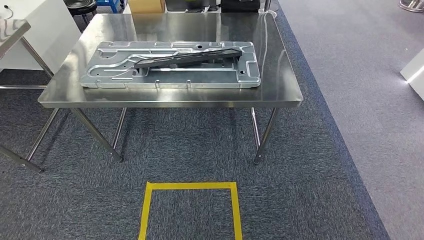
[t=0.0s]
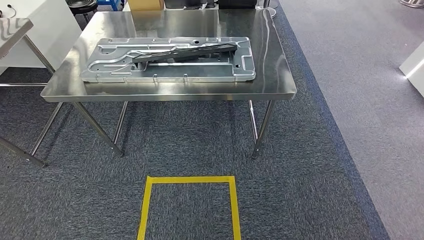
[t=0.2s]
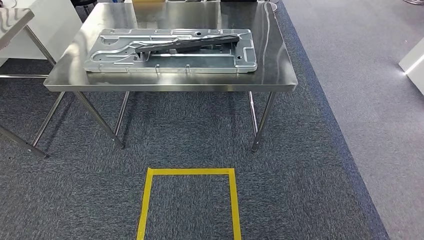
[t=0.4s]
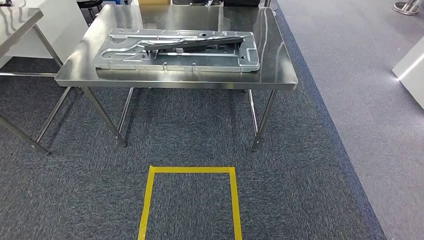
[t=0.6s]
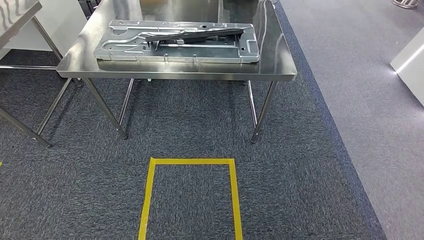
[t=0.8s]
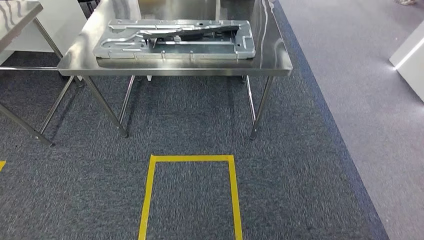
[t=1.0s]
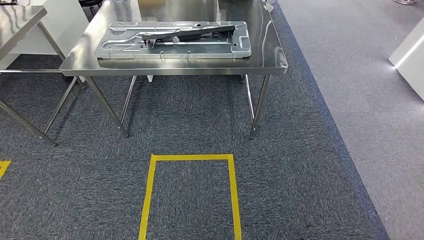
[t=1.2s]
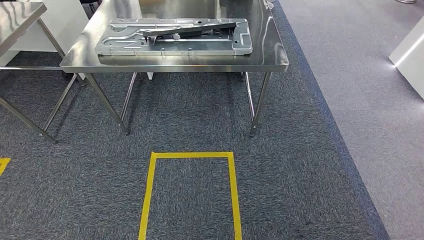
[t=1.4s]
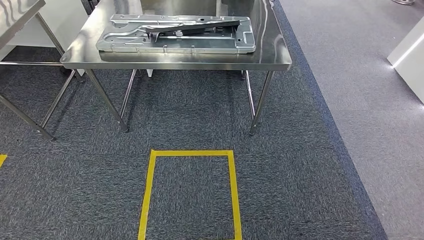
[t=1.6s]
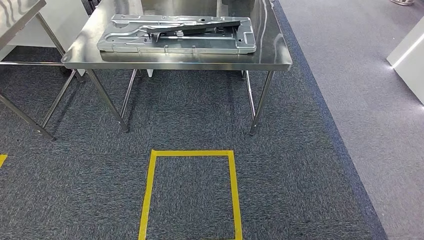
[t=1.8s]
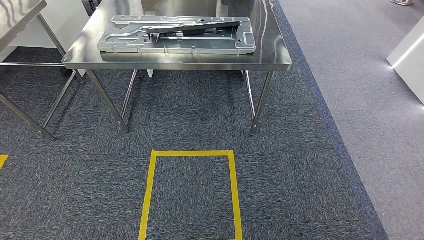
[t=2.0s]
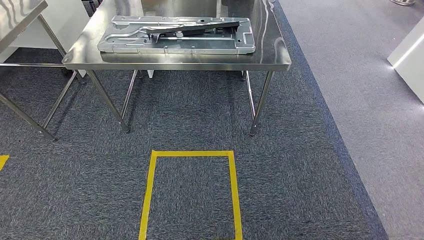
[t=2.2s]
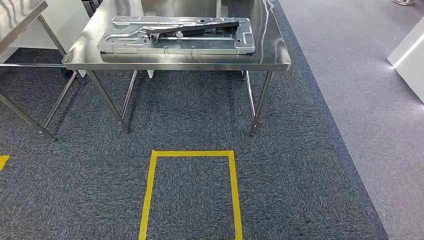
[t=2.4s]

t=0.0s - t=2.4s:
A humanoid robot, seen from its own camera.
Step, t=0.0s - t=2.2s: Move to the initial position of the shelf.
t=1.2s - t=2.4s: Both hands stay about where they are.

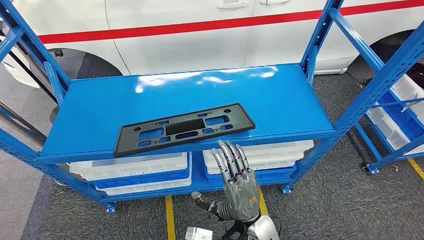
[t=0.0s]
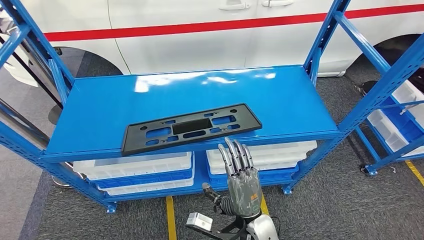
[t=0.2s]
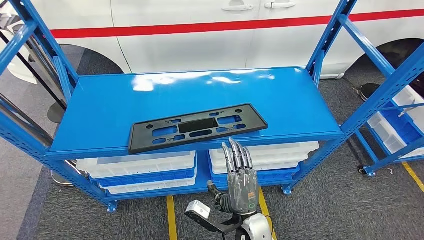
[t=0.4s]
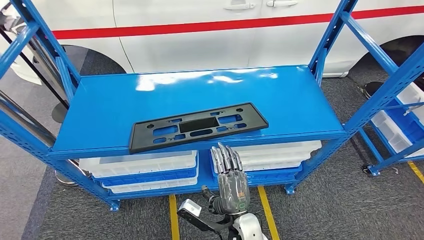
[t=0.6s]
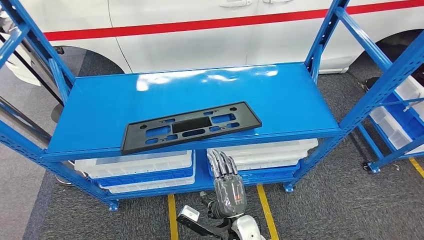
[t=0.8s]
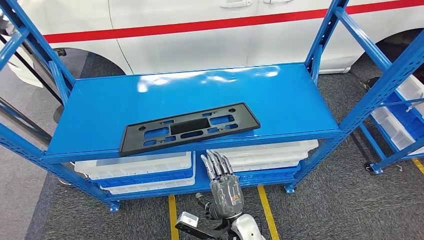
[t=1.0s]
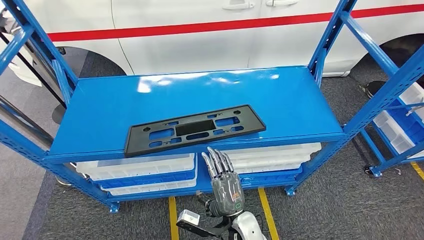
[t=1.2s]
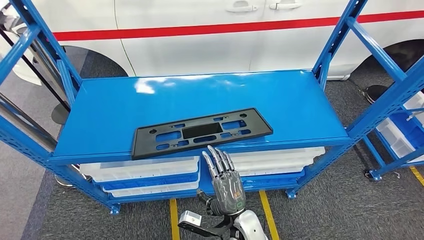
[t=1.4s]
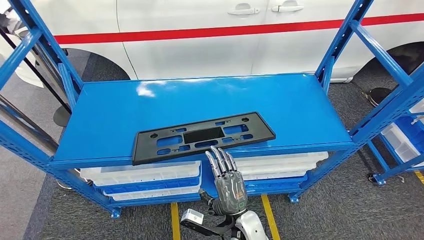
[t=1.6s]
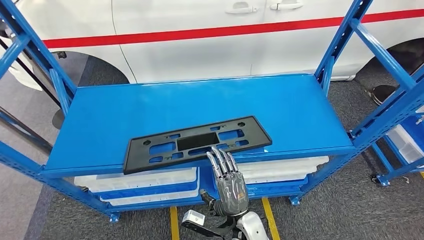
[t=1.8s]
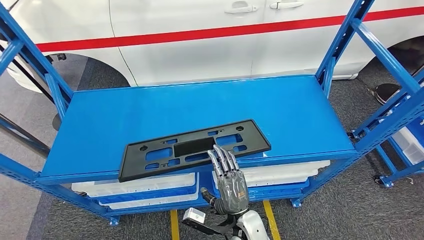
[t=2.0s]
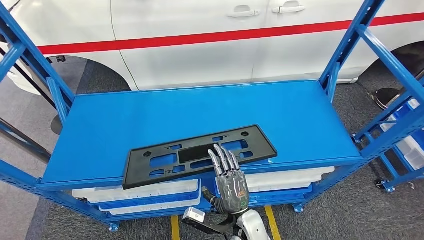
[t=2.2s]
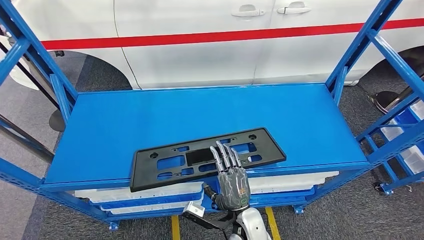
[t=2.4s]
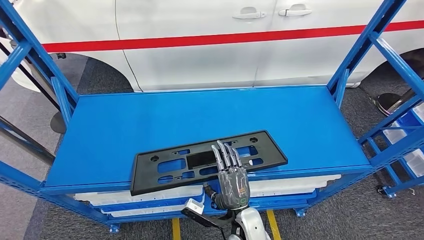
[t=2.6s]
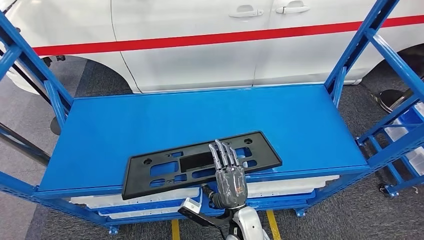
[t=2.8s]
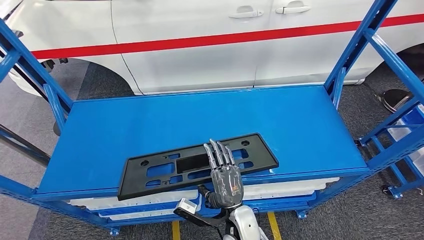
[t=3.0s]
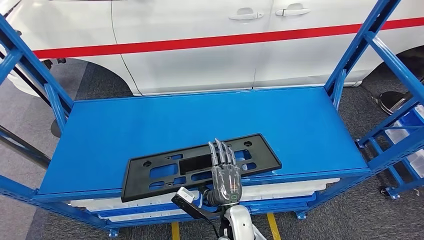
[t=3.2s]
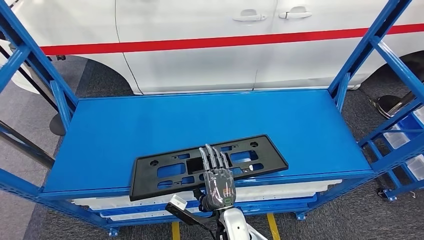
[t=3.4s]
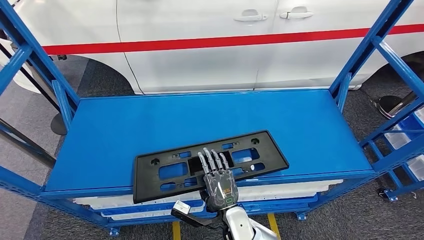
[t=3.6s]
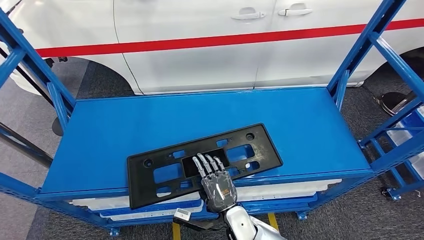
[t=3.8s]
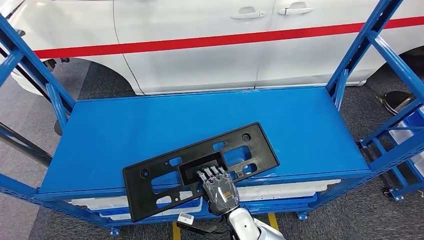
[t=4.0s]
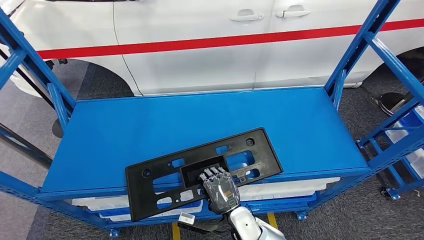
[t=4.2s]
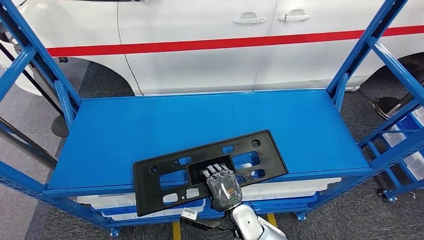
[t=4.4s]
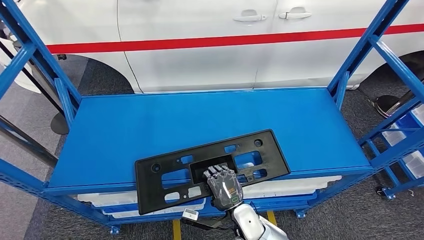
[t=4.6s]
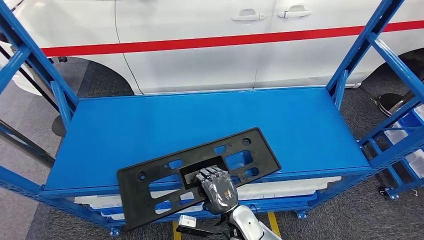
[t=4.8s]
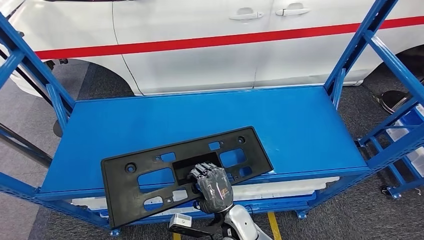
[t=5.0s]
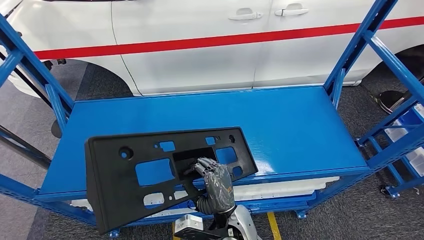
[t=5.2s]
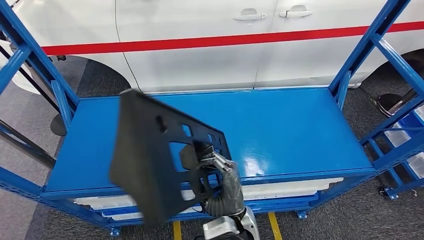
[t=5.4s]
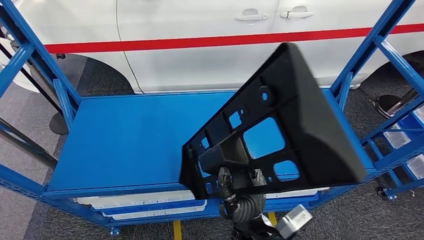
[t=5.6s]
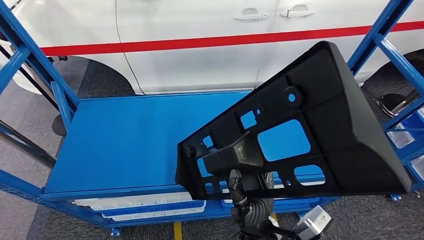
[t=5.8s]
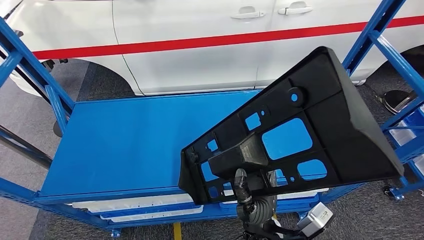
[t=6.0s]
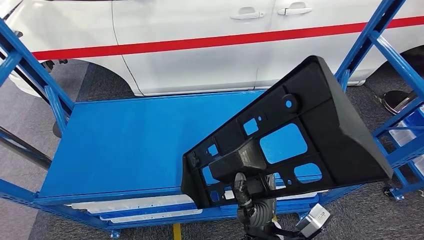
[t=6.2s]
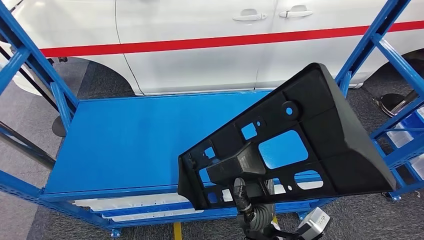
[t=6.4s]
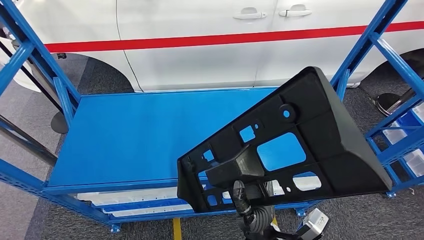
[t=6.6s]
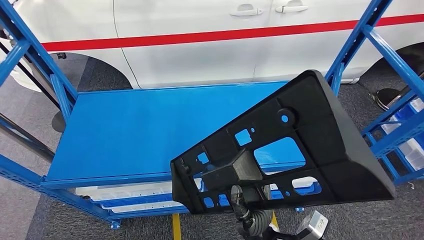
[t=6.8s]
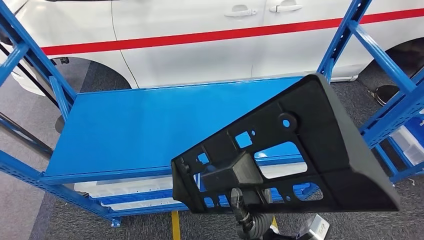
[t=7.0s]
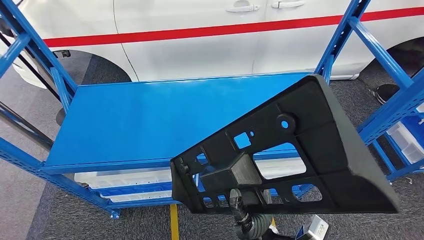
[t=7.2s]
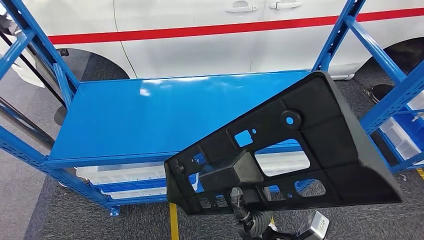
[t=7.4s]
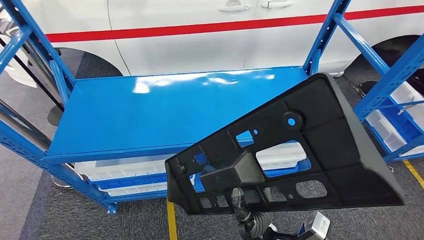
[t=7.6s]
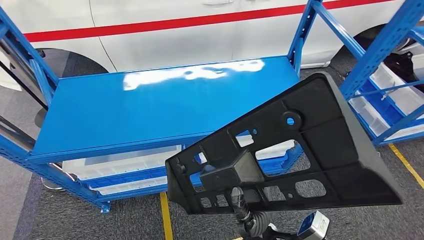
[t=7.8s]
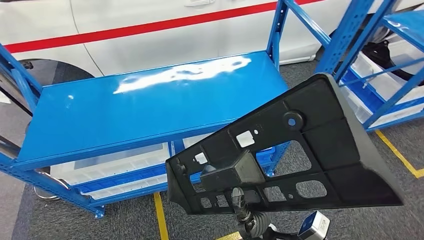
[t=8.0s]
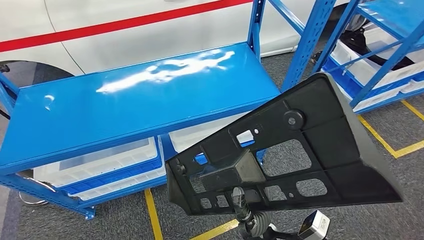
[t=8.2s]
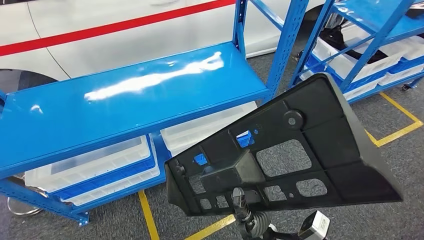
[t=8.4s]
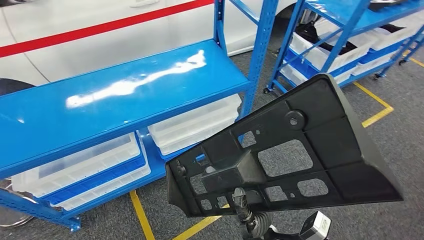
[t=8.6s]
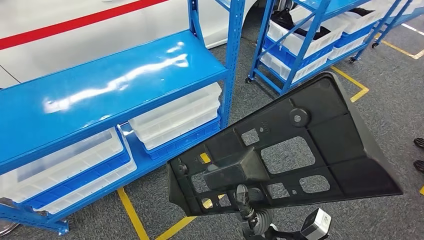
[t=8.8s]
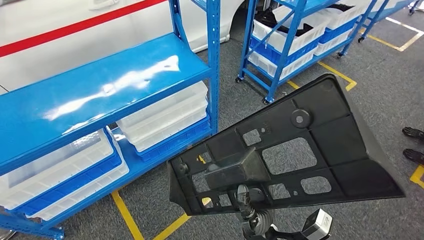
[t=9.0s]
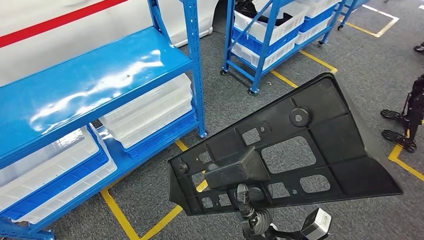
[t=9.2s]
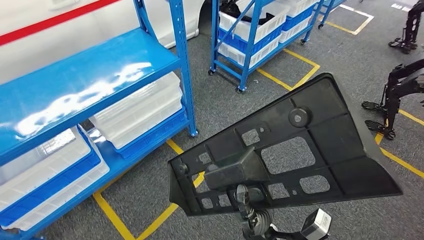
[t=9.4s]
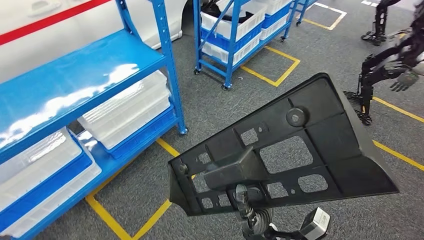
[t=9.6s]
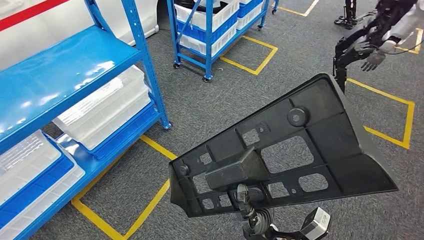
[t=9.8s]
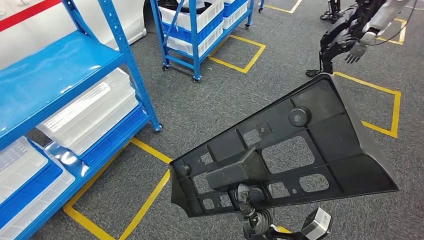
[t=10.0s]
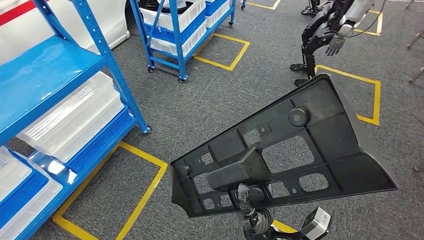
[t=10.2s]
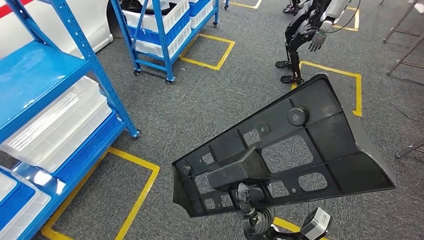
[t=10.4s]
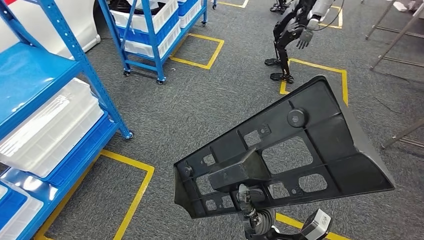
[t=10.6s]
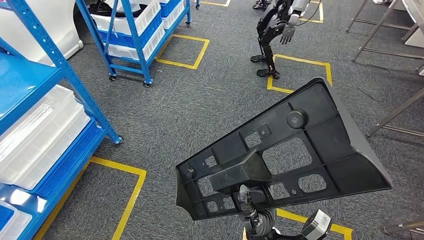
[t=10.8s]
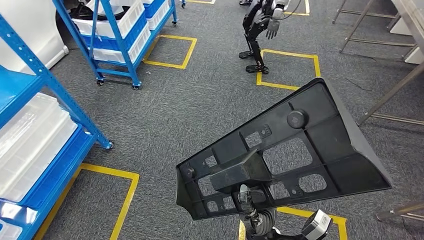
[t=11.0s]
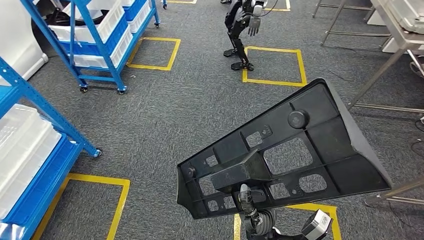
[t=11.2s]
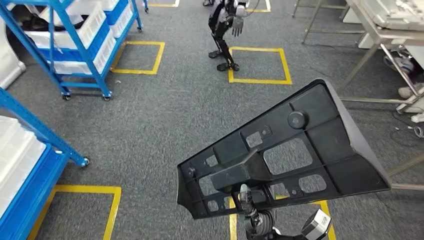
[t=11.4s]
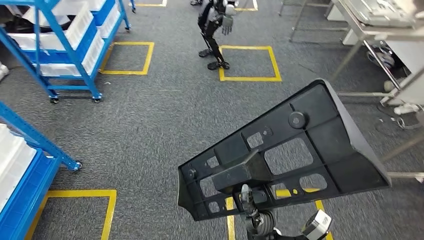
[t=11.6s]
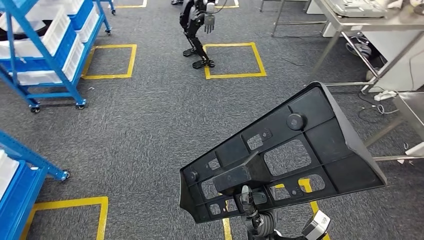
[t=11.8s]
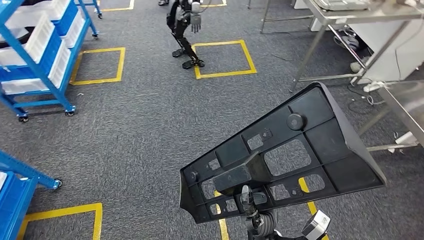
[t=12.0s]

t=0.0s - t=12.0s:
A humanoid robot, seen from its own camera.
Step, t=0.0s - t=8.2s: Pick up the large material from the shelf.

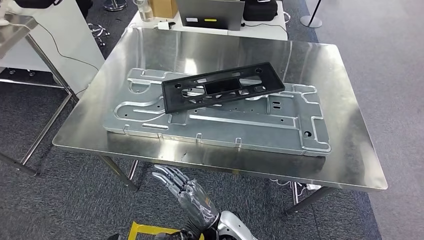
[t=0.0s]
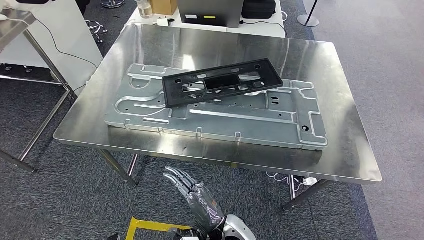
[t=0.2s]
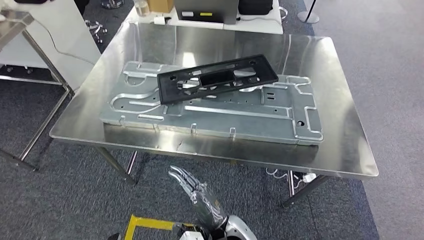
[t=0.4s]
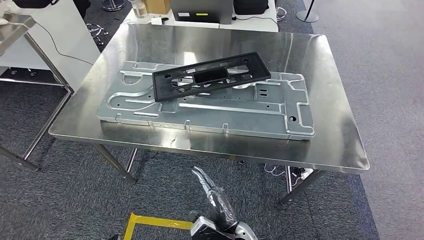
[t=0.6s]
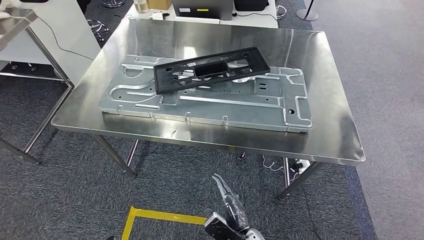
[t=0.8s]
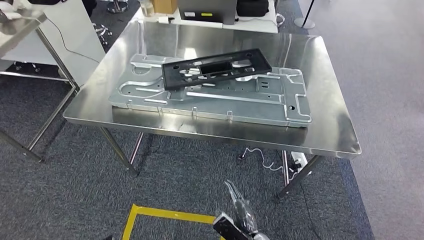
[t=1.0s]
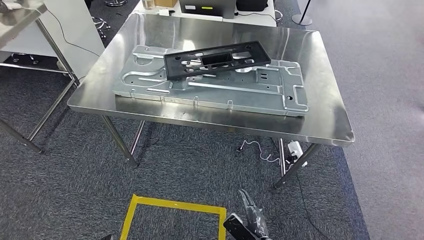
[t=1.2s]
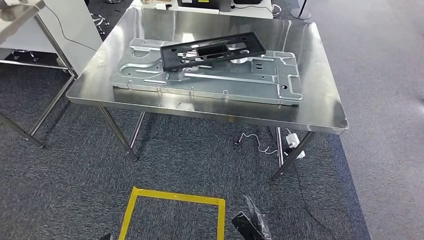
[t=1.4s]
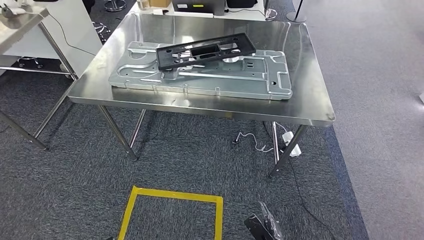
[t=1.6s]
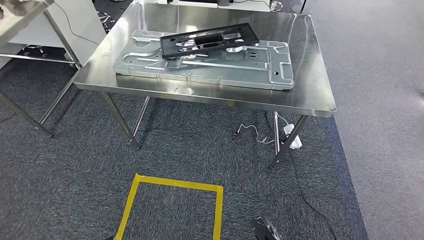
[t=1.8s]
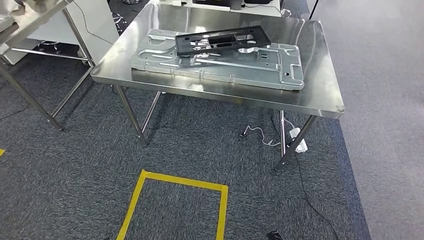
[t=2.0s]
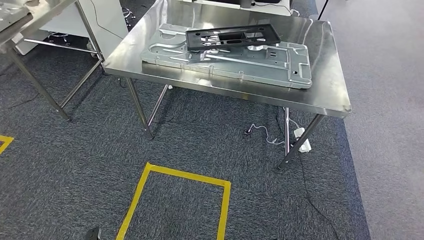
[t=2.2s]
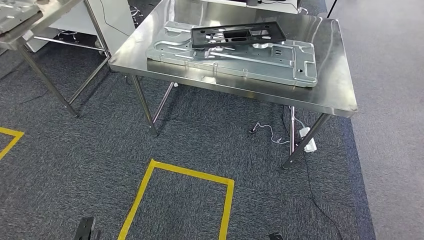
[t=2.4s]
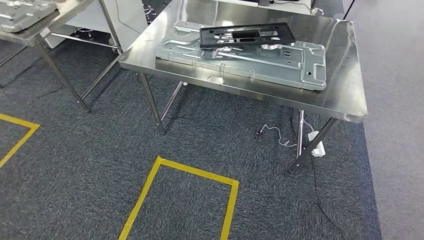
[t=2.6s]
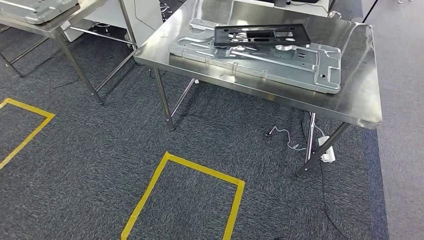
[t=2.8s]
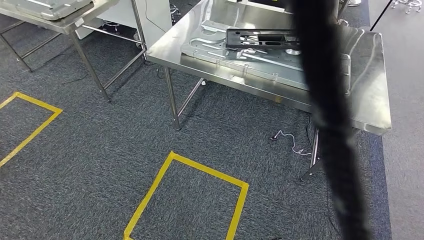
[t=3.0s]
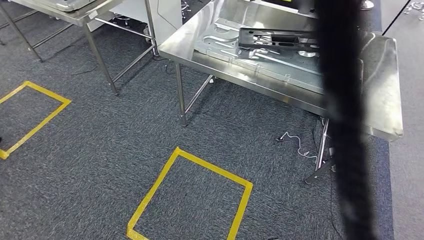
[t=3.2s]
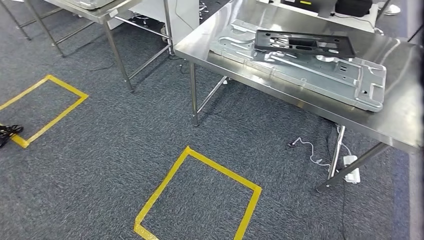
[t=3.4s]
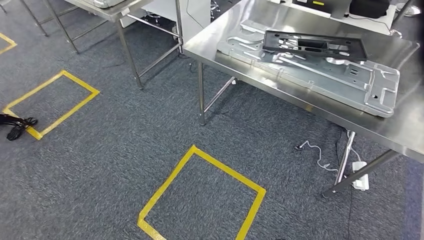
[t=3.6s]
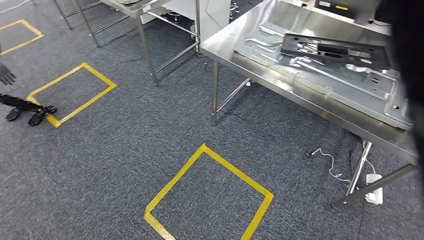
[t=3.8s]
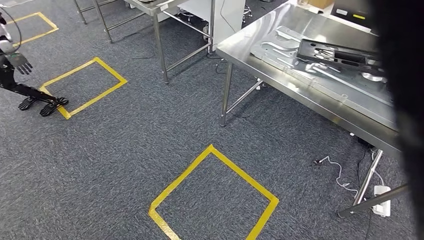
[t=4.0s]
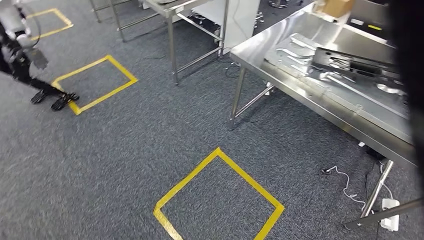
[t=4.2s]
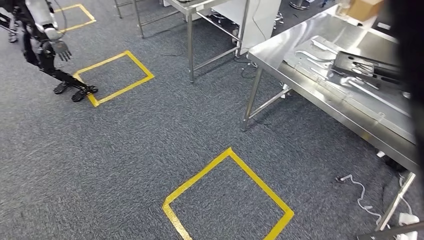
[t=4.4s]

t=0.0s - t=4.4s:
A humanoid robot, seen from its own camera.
Step, t=0.0s - t=2.4s: Insert the large material into the corresponding hole on the workbench.
